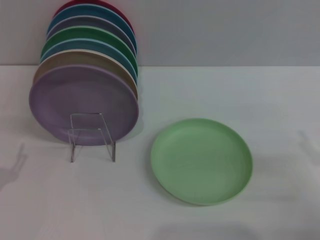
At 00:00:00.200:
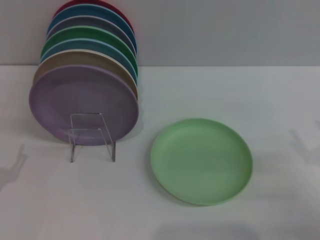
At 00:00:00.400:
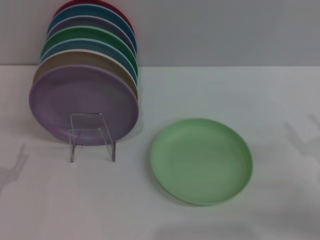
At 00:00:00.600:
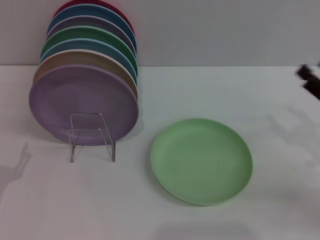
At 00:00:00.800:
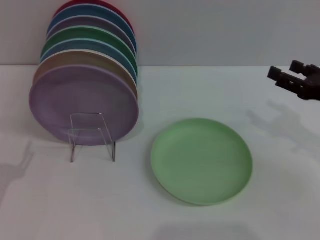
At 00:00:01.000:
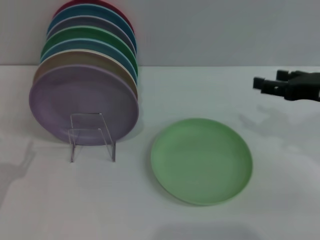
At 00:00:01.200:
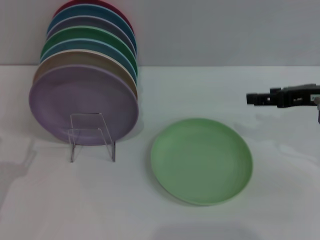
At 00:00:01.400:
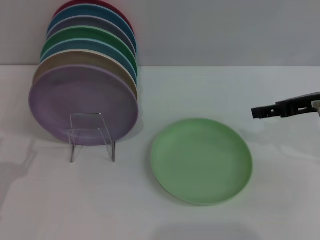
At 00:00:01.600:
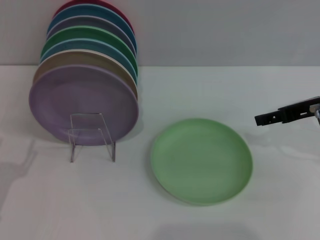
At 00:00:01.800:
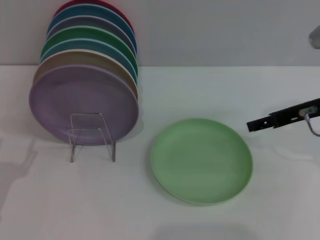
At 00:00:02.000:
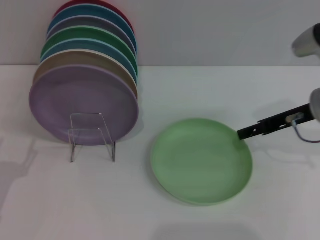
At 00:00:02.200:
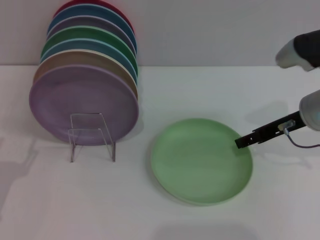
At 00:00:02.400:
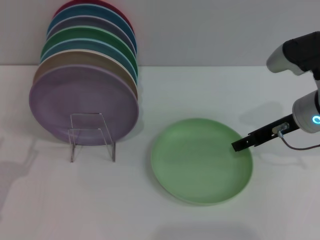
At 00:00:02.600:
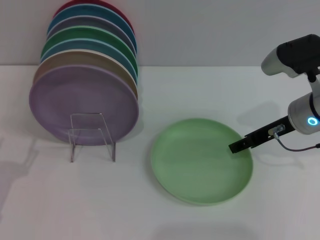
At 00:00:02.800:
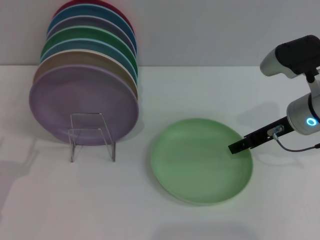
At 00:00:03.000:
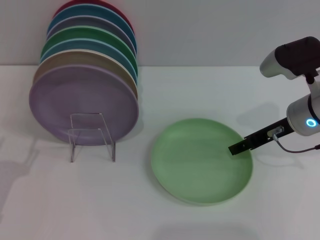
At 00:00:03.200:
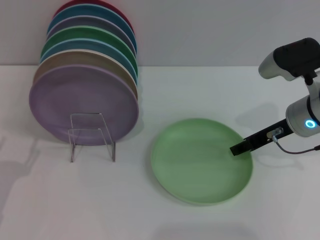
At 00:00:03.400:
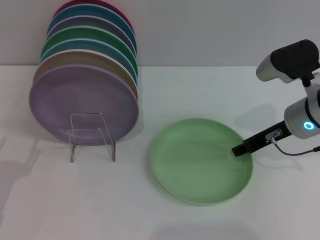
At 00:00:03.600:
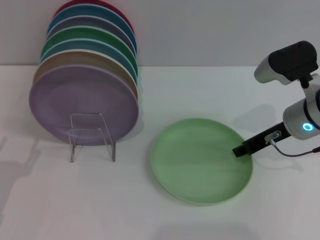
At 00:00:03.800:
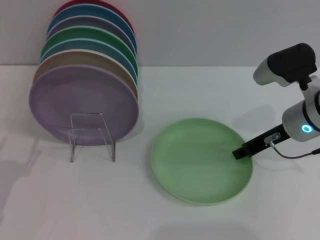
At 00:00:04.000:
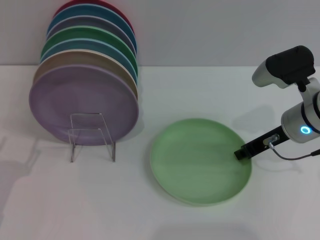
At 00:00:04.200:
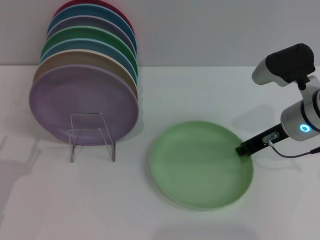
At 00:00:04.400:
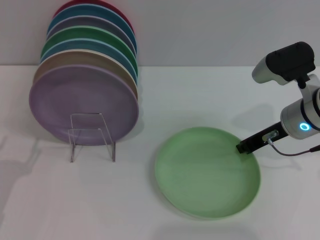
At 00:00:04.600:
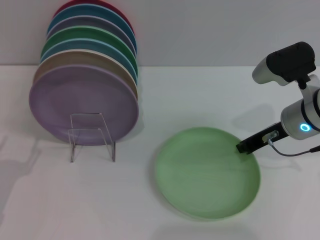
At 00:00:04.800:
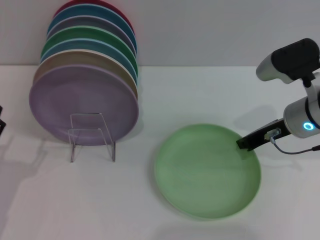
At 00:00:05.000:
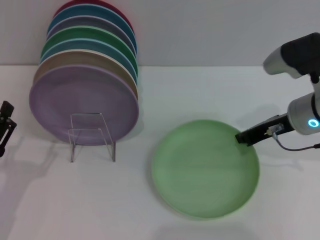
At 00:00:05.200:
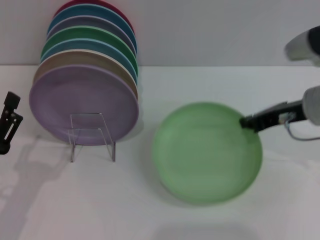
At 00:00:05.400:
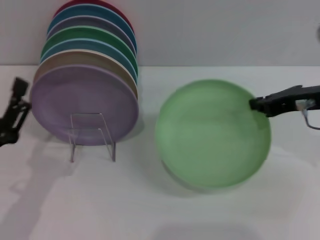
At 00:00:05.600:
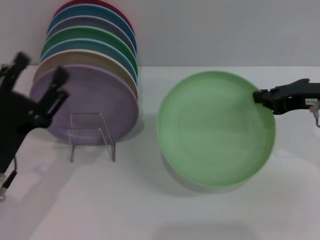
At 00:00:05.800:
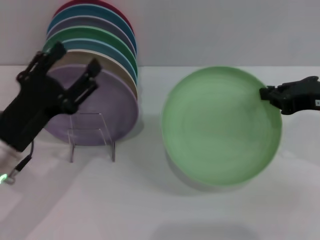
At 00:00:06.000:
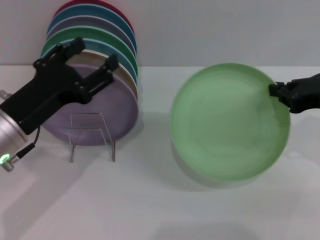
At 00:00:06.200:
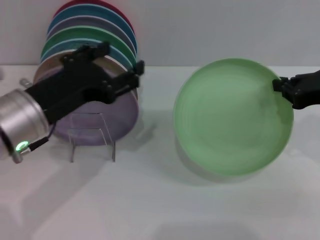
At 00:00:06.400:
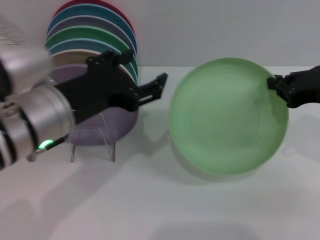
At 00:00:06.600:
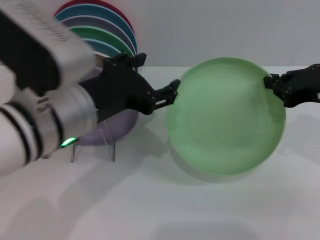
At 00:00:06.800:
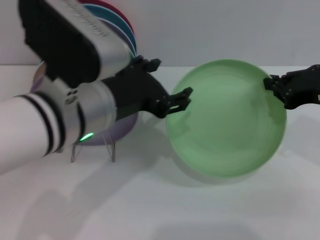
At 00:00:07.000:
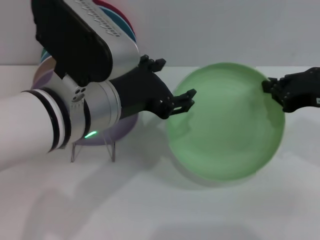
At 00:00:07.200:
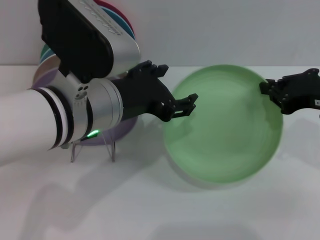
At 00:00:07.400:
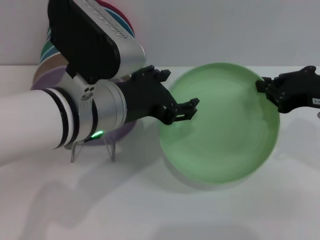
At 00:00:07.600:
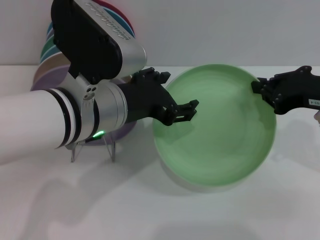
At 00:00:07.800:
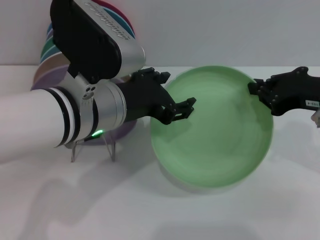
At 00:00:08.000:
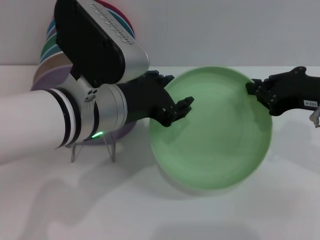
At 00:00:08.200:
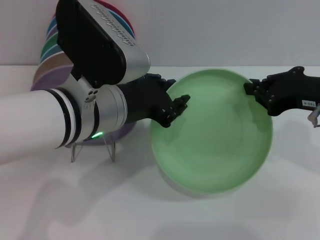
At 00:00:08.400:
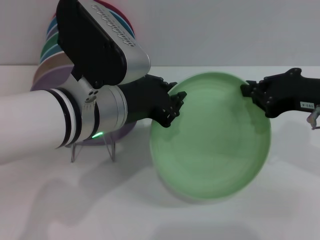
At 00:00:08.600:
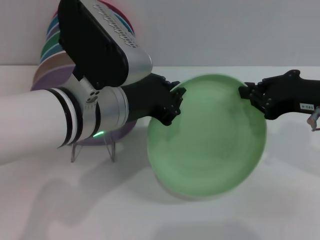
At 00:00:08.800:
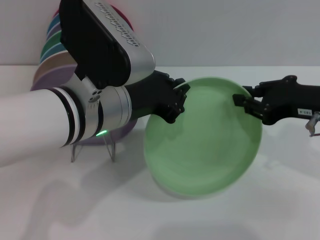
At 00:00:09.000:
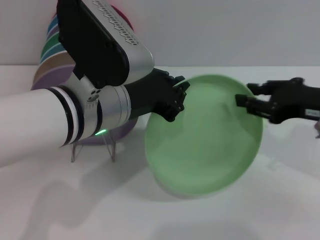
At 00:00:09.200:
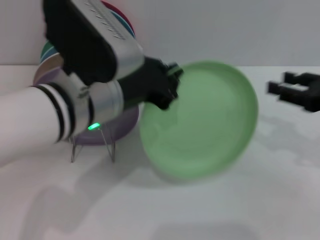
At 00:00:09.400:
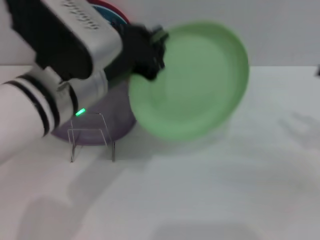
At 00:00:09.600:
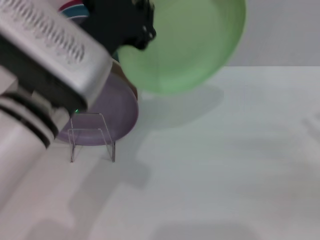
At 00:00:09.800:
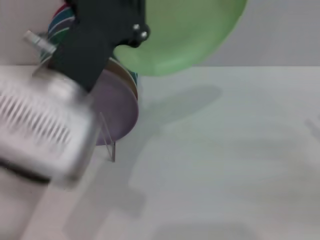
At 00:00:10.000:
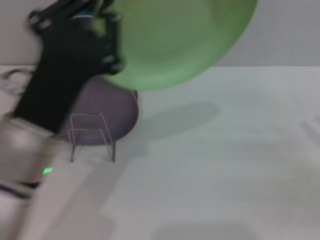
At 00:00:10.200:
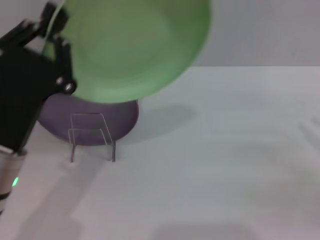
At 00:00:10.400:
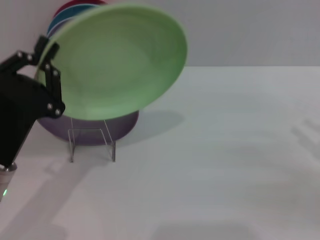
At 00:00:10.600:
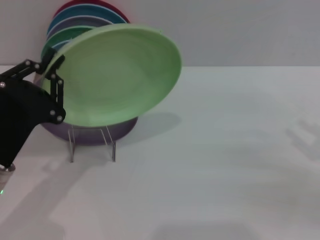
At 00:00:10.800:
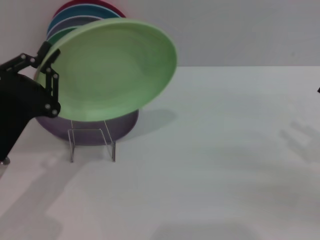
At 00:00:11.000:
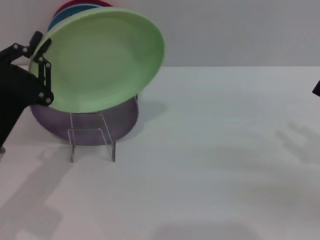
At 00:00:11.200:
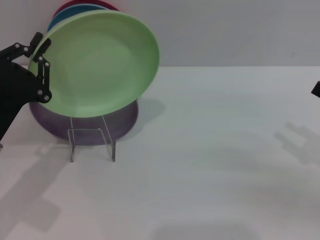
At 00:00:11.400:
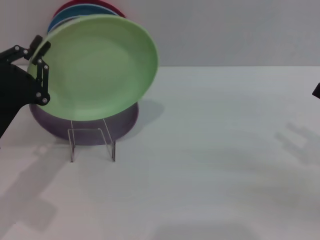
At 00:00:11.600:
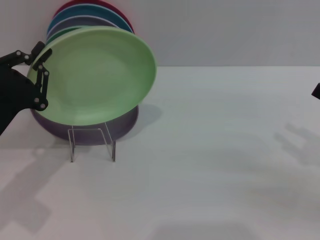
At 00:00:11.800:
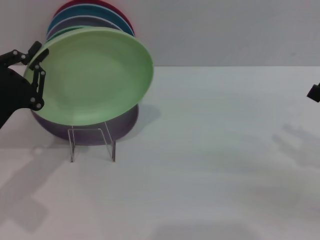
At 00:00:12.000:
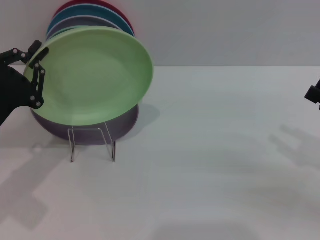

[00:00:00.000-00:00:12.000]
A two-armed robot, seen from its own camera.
Task of the whole recording: Grip the plate with one hand, pass it to the other, then set it on the shelf.
Step, 00:00:00.000 to 00:00:05.200: Pick up the plate with the right gripper.
Step, 00:00:05.400 to 00:00:09.200: Pass the plate from the right gripper to the left gripper.
00:00:00.000 to 00:00:01.600: The right gripper travels forward, upward and to the left by about 20 cm.
00:00:01.600 to 00:00:03.000: The right gripper shifts by some 5 cm.
00:00:03.000 to 00:00:04.400: The right gripper closes.
00:00:04.400 to 00:00:06.000: The left gripper goes approximately 15 cm upward, to the right and forward. Meanwhile the right gripper moves to the right, backward and upward, some 10 cm.
00:00:06.000 to 00:00:07.600: The left gripper is displaced to the right and upward by approximately 15 cm.
00:00:07.600 to 00:00:09.000: The left gripper closes up.
00:00:09.000 to 00:00:10.400: The right gripper moves to the right, downward and backward, about 15 cm, and opens its fingers. Meanwhile the left gripper shifts some 15 cm to the left and downward.
00:00:10.400 to 00:00:12.000: The left gripper is displaced to the left by some 5 cm.

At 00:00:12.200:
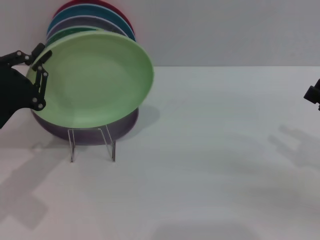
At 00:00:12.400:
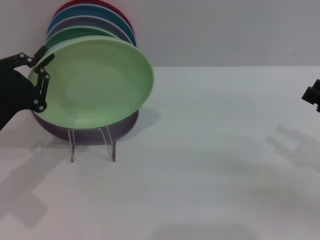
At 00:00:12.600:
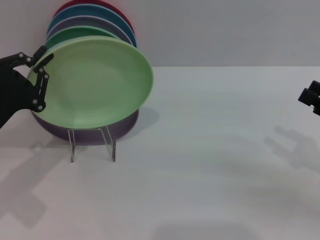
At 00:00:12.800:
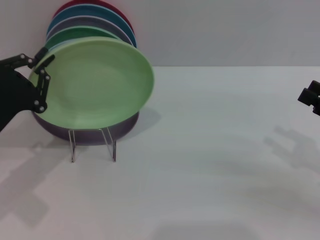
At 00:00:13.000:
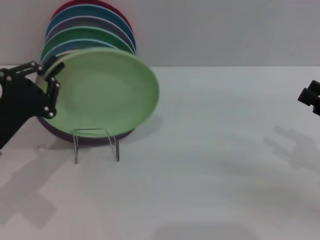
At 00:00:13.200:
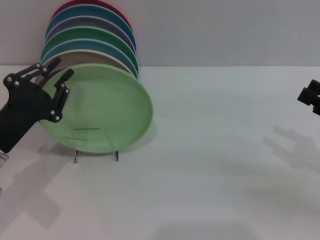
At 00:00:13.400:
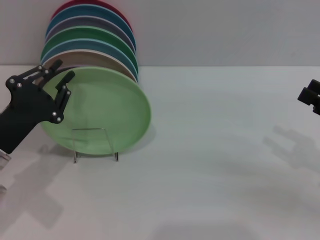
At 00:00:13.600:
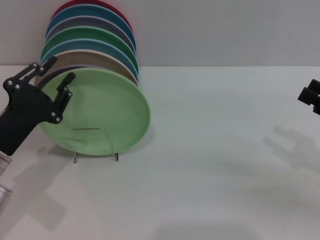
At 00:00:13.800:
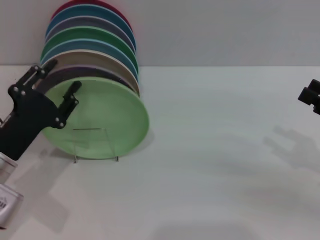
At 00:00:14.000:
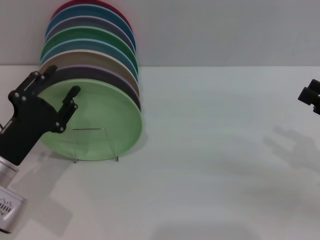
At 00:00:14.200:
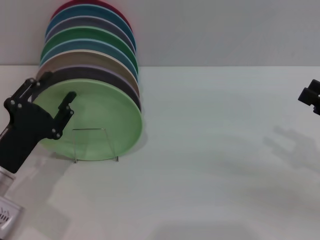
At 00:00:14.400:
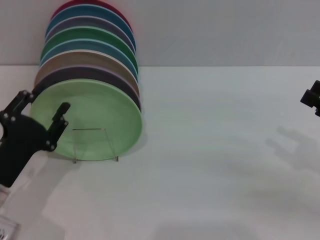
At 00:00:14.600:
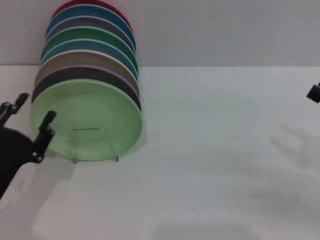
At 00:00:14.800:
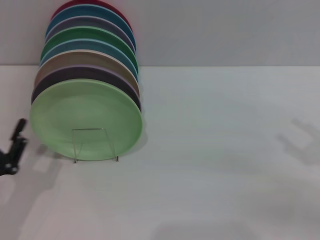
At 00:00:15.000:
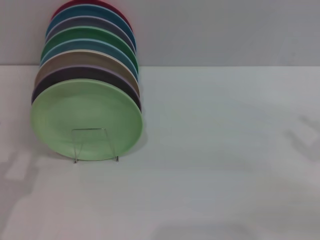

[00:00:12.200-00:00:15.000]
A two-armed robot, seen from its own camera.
Task of the whole recording: Grip the plate with one hand, pass it to the other, then set it on the shelf.
Step, 00:00:12.200 to 00:00:14.400: Place the plate on the shelf with the left gripper.
00:00:12.200 to 00:00:13.600: There are only small adjustments of the grippers.
00:00:13.600 to 00:00:15.000: The left gripper is displaced backward by some 10 cm, and opens its fingers.
